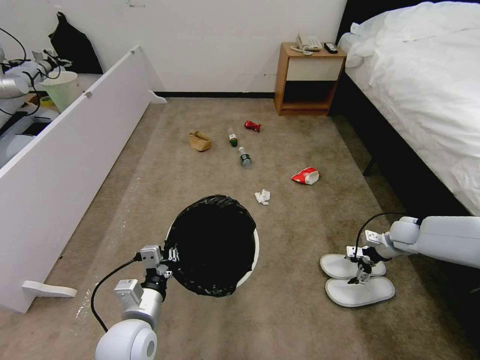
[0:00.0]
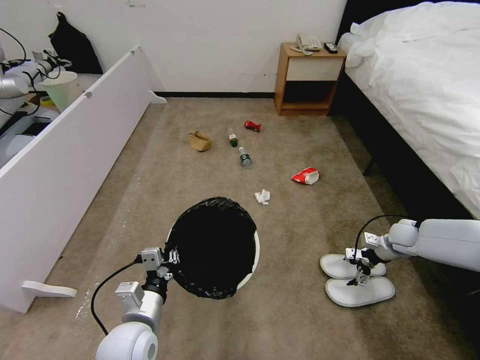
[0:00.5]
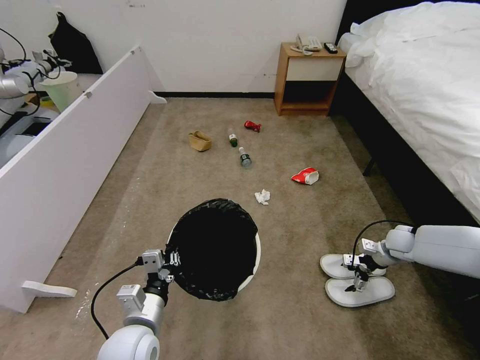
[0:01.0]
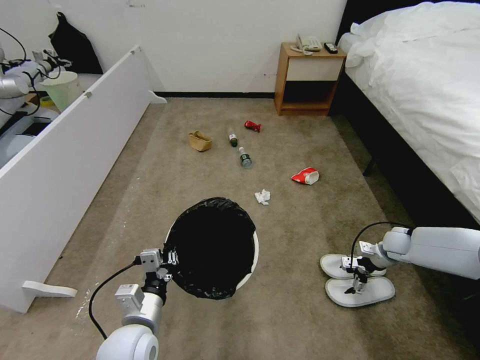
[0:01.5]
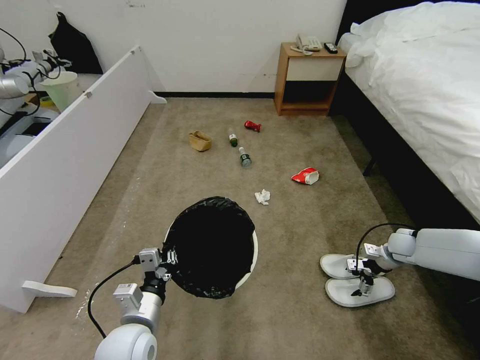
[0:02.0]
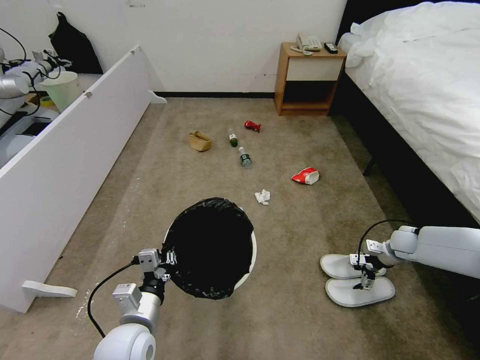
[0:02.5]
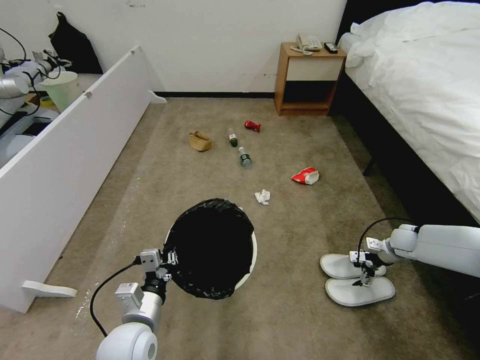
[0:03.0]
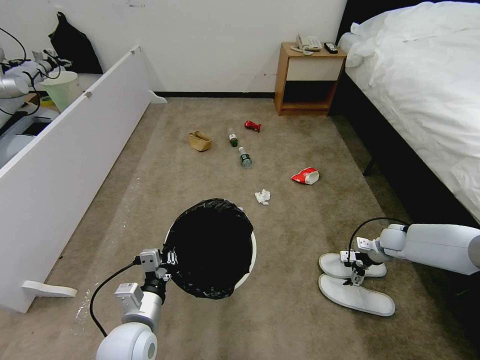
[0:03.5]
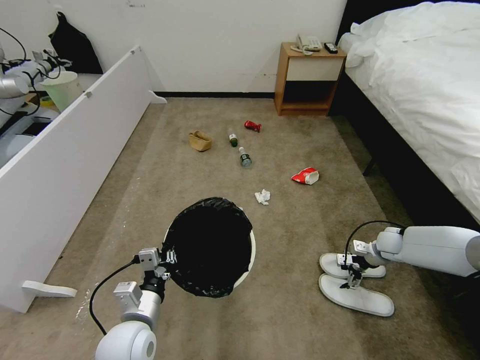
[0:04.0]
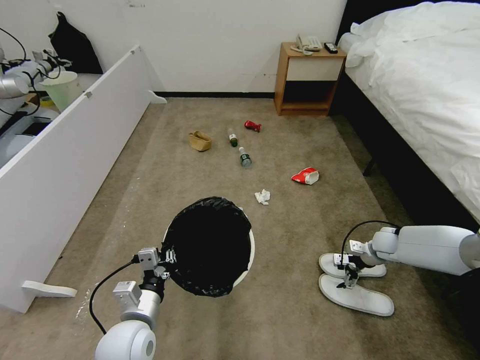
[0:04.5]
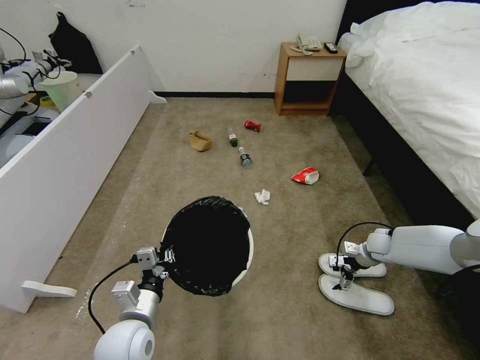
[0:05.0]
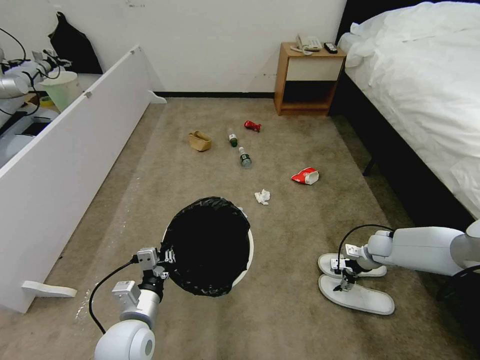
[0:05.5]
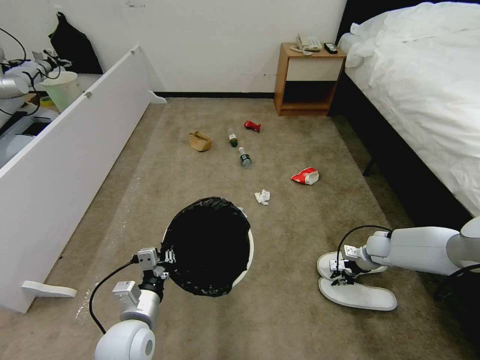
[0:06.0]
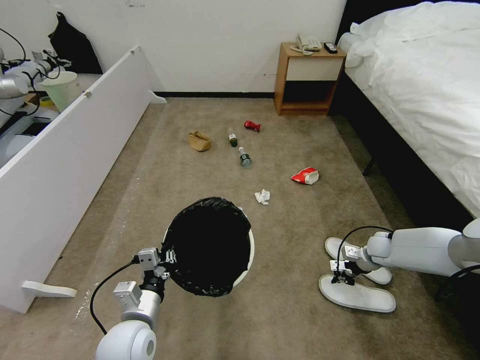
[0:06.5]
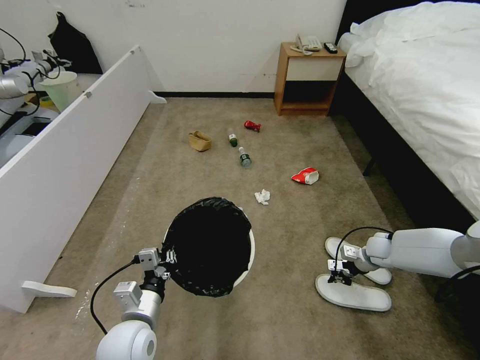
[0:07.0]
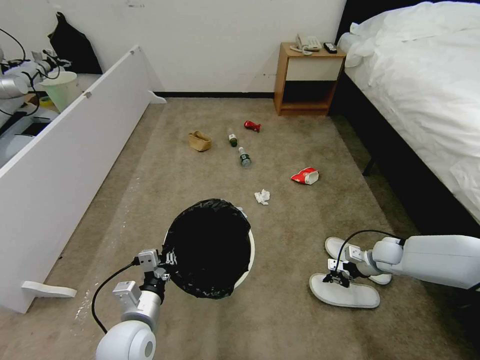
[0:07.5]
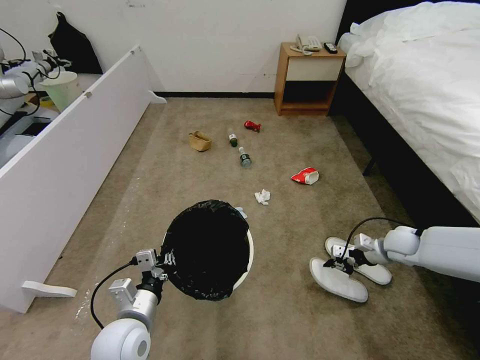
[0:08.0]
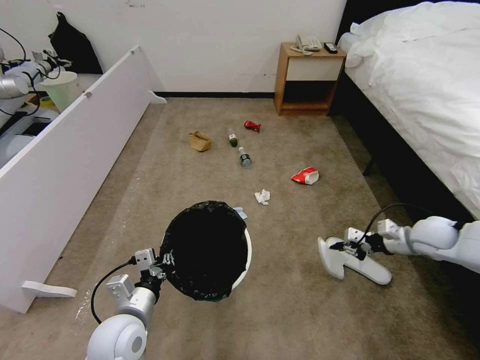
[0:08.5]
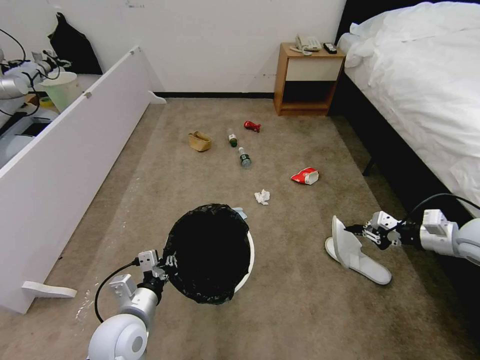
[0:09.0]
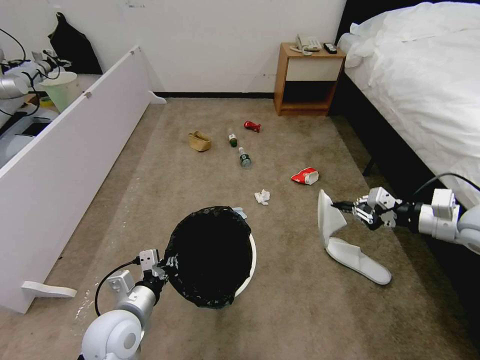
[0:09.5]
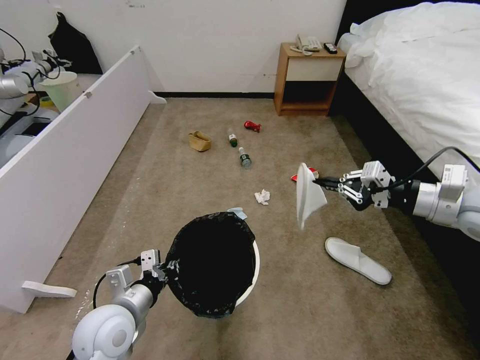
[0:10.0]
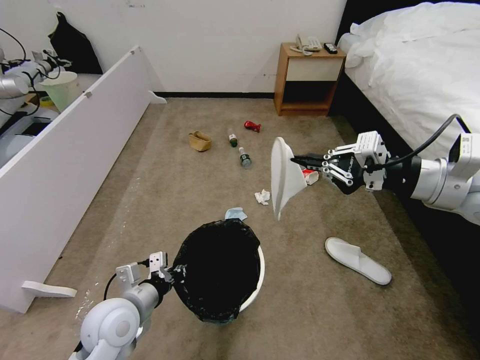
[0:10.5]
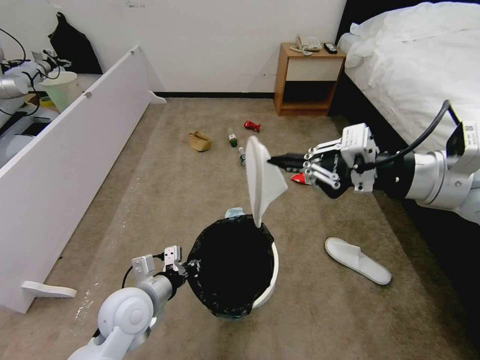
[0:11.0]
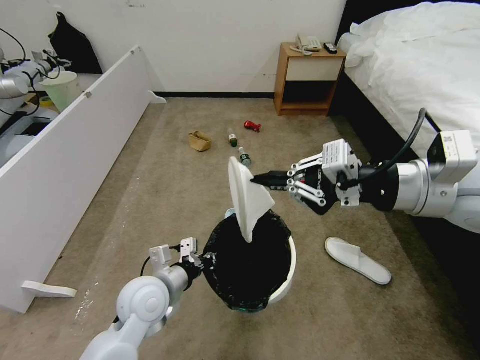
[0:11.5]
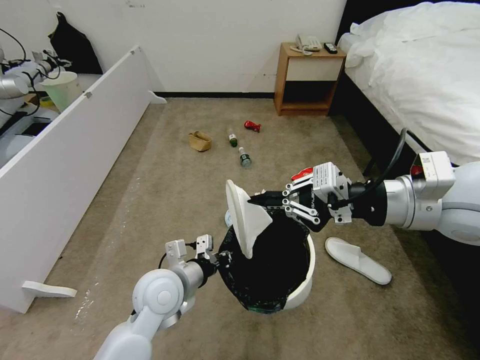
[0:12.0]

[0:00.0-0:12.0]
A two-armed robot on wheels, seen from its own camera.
Task of the whole recording: Pick up the trash bin, then pick up the garbage from the floor and place it into the trash bin.
0:00.0 to 0:04.0: The grippers make only small movements.
0:04.0 to 0:06.0: The right gripper closes its fingers.
0:06.0 to 0:08.0: The right gripper moves upward, roughly 5 cm.
0:08.0 to 0:10.0: The right gripper travels upward by about 25 cm.
0:10.0 to 0:12.0: The right gripper heads to the left and upward, covering approximately 15 cm. The left gripper travels to the right and forward by some 10 cm.

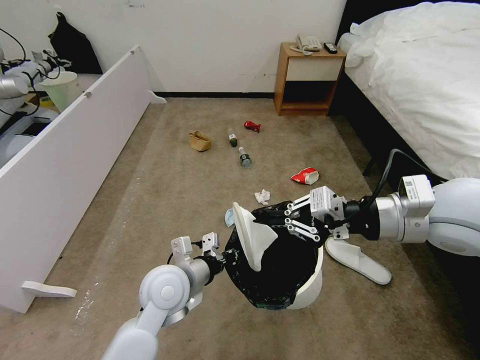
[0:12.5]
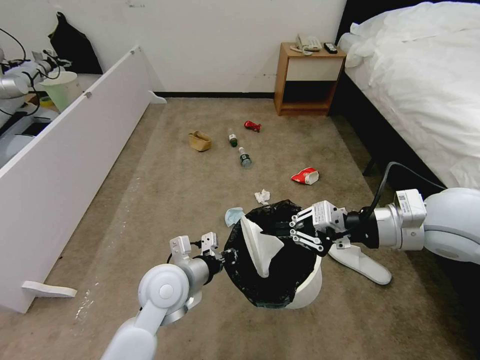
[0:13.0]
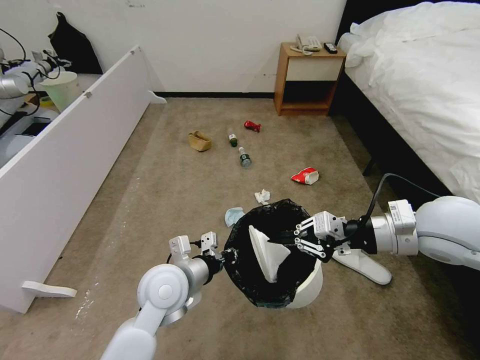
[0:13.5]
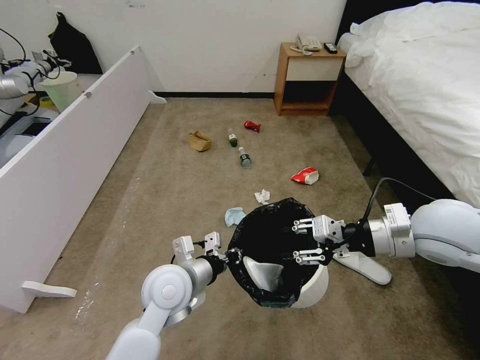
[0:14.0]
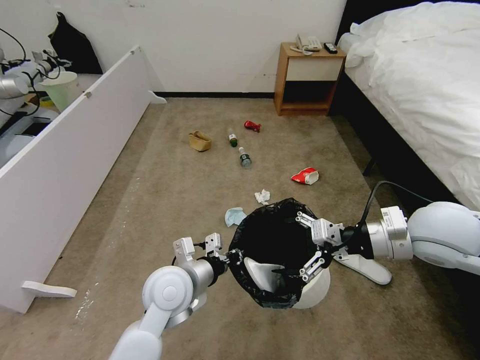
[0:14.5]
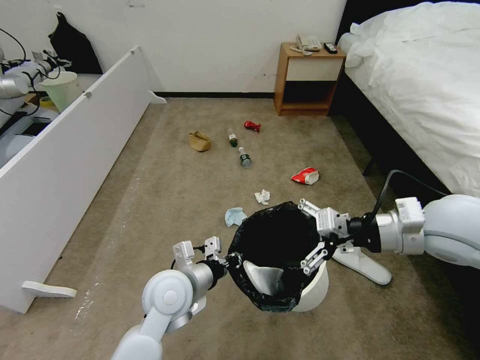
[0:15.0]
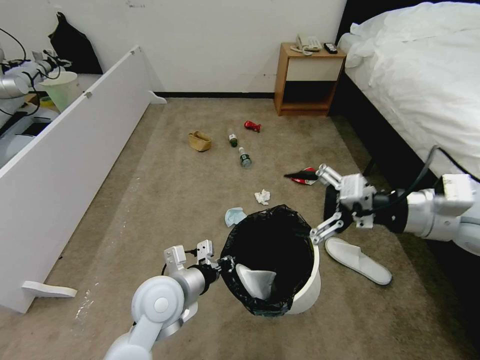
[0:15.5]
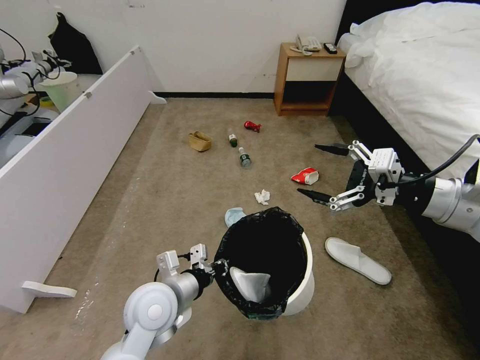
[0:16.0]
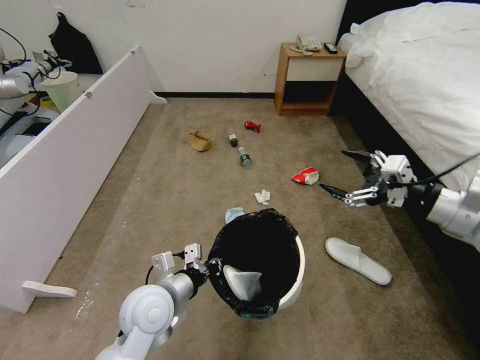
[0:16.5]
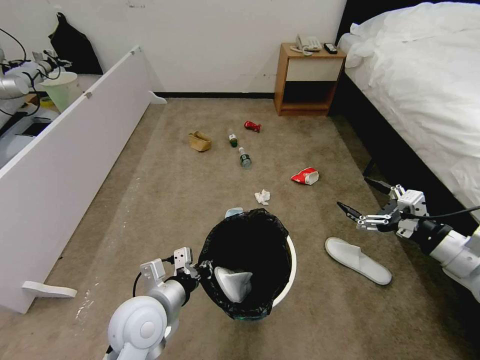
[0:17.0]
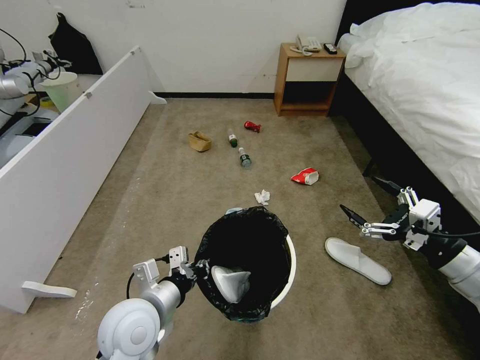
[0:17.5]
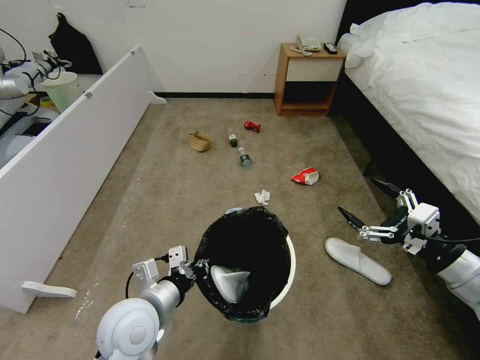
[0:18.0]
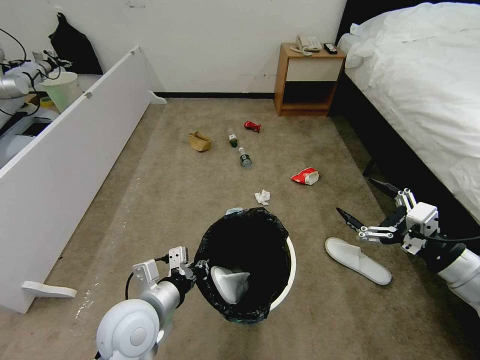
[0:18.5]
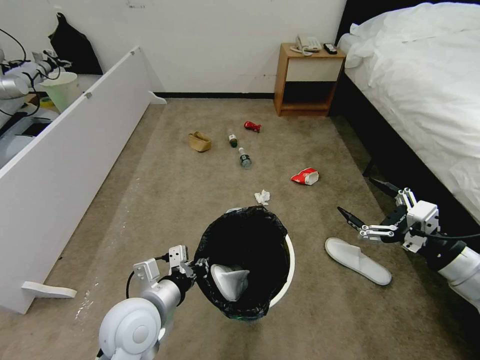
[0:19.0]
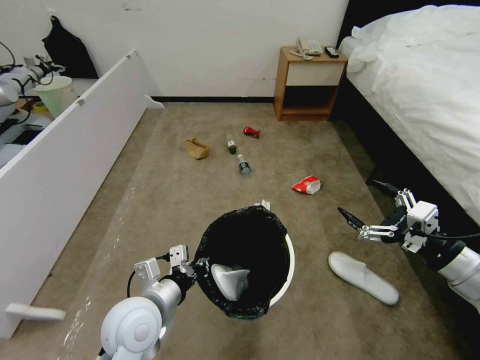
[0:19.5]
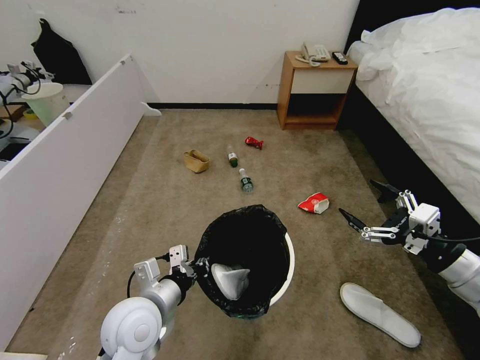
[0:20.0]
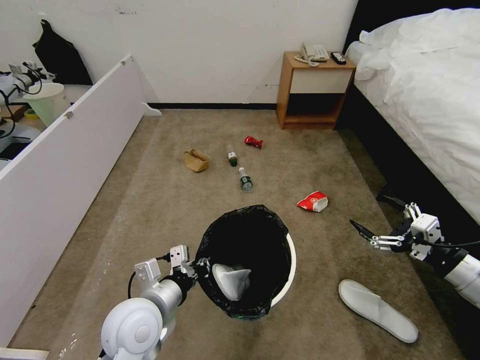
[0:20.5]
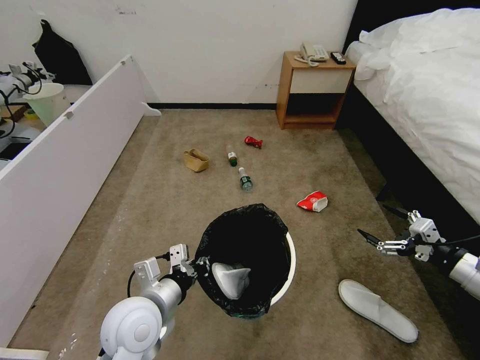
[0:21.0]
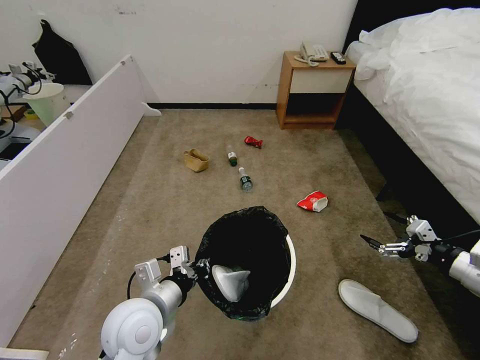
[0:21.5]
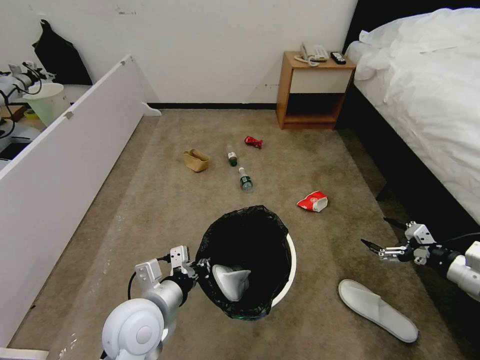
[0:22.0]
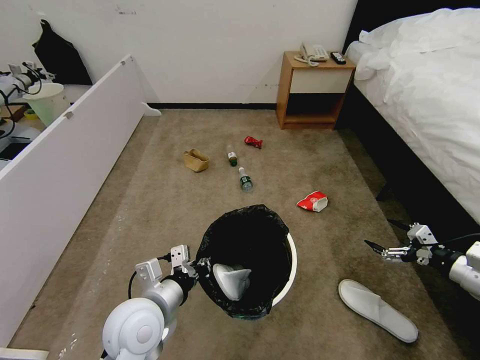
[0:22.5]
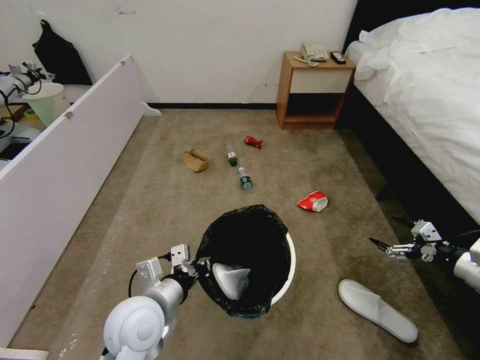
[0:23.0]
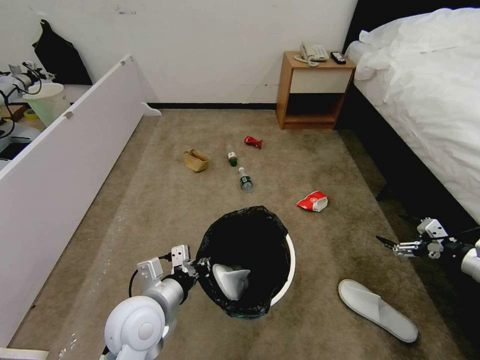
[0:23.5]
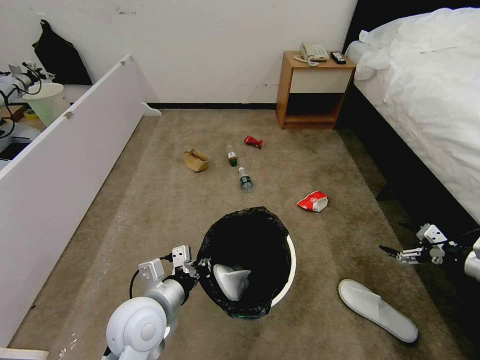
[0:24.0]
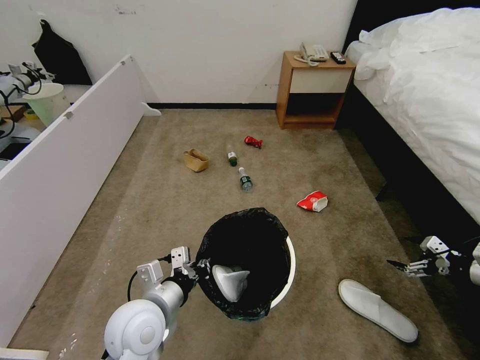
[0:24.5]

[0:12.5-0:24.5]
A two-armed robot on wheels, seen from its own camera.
Task of the whole recording: Pick up the trash bin, then pick up the garbage from the floor and place it into the trash bin.
0:12.5 to 0:14.5: The right gripper travels downward by about 5 cm, and opens.
0:14.5 to 0:16.5: The right gripper heads to the right, covering roughly 10 cm; the left gripper moves approximately 5 cm.
0:16.5 to 0:18.5: The right gripper is displaced backward and downward by some 10 cm.
0:18.5 to 0:20.5: The right gripper moves to the right, roughly 5 cm.
0:20.5 to 0:22.5: The right gripper shifts approximately 5 cm to the right.
0:22.5 to 0:24.5: The right gripper goes about 5 cm to the right.

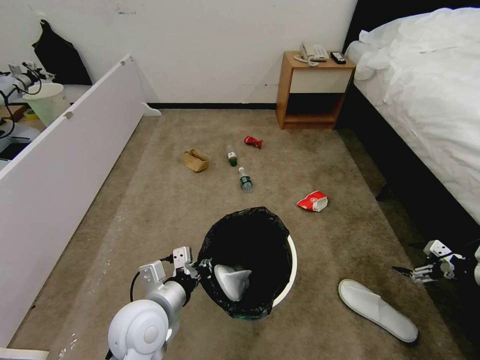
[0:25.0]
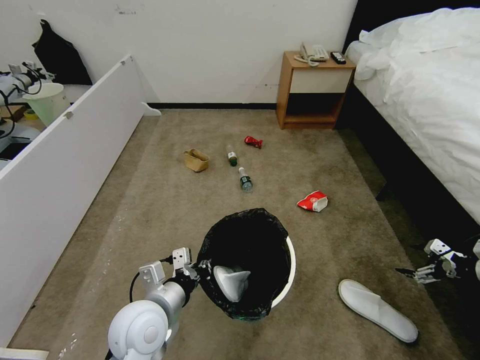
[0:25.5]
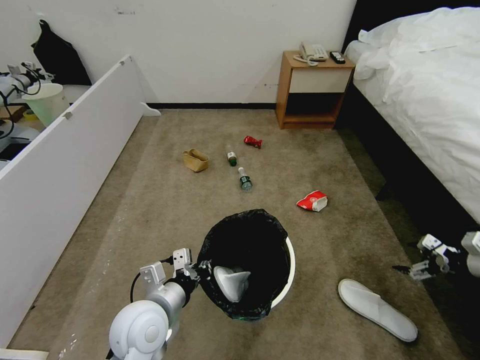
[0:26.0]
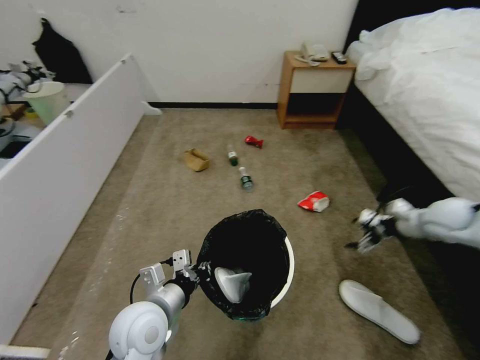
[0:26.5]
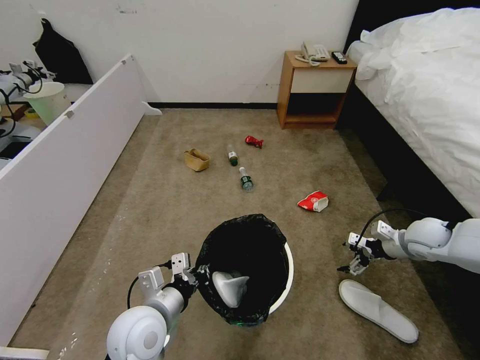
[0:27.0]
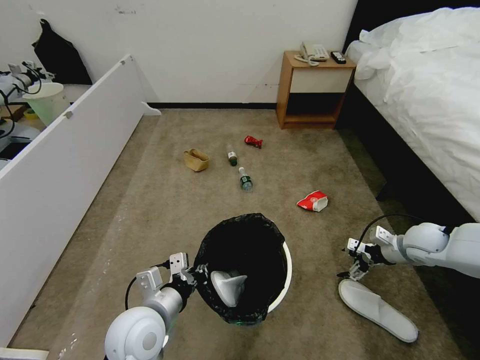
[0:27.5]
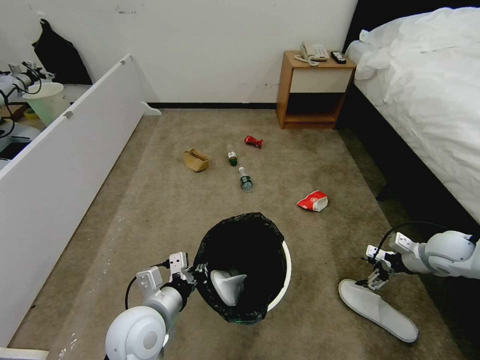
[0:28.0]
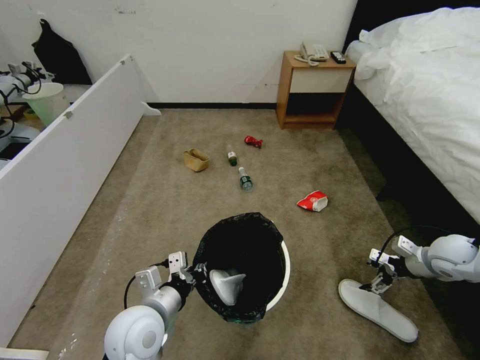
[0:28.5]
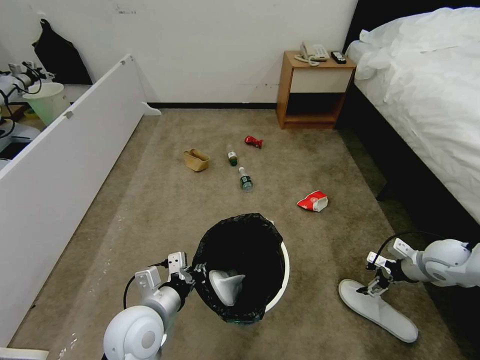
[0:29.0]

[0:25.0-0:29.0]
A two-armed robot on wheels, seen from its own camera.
Task of the whole recording: Pick up the trash bin, then pick up the garbage from the floor and place it into the trash bin.
0:25.0 to 0:27.0: The right gripper is displaced to the left and forward by roughly 20 cm.
0:27.0 to 0:29.0: The right gripper changes place by approximately 5 cm.
